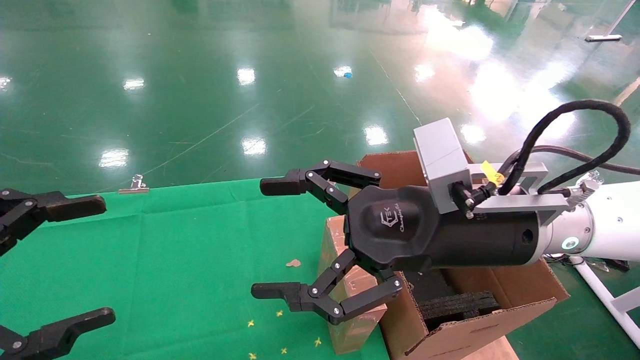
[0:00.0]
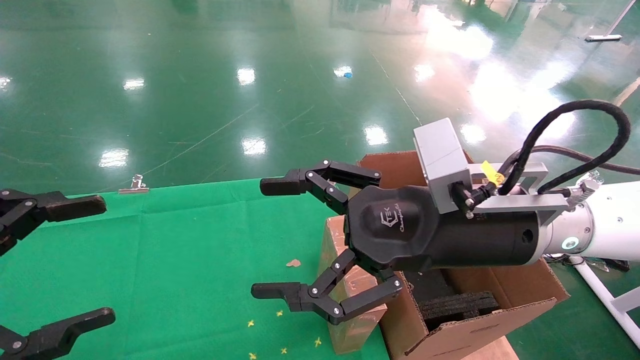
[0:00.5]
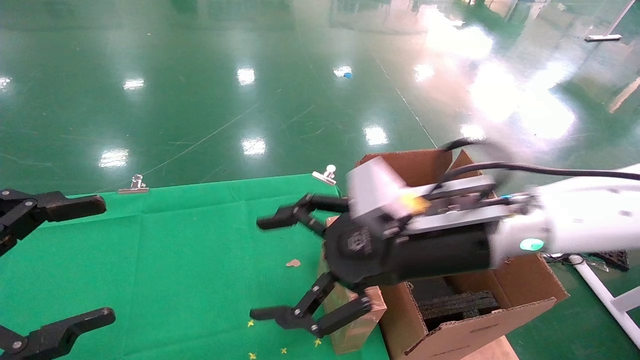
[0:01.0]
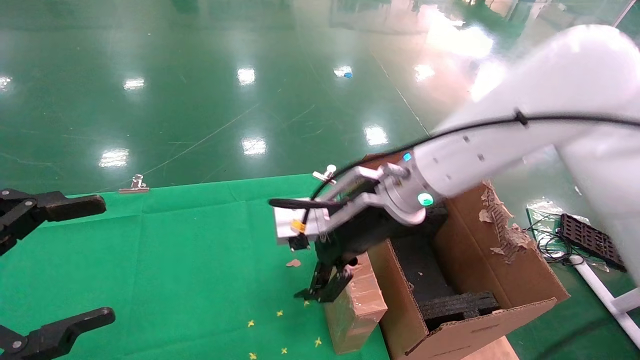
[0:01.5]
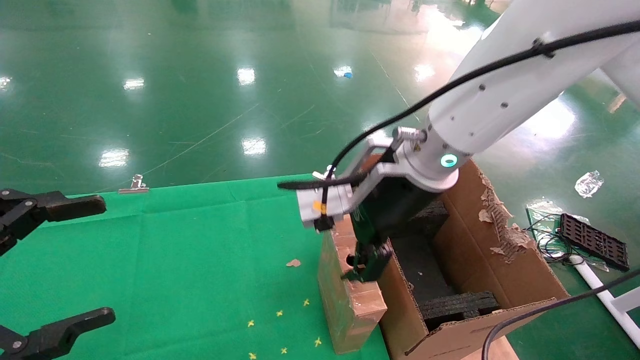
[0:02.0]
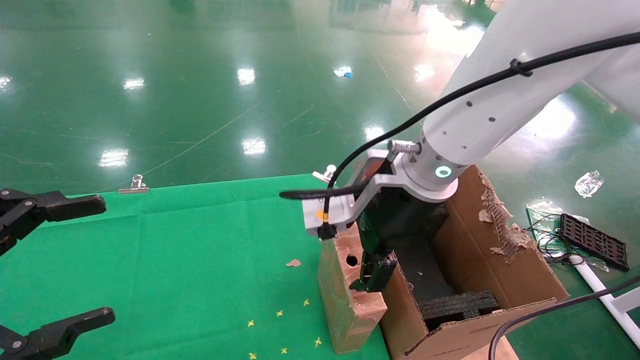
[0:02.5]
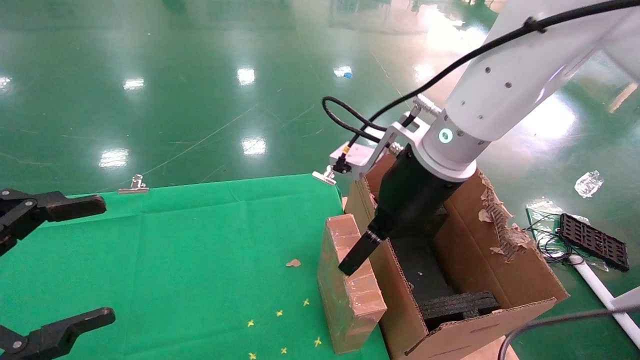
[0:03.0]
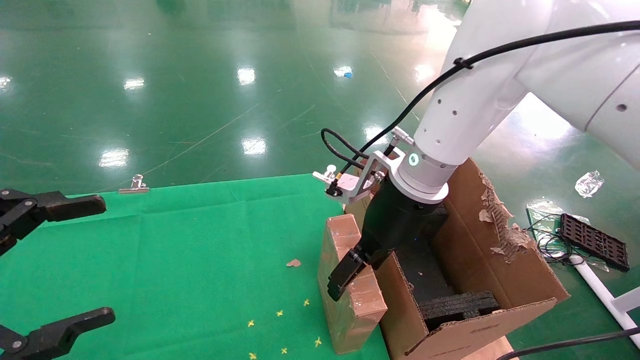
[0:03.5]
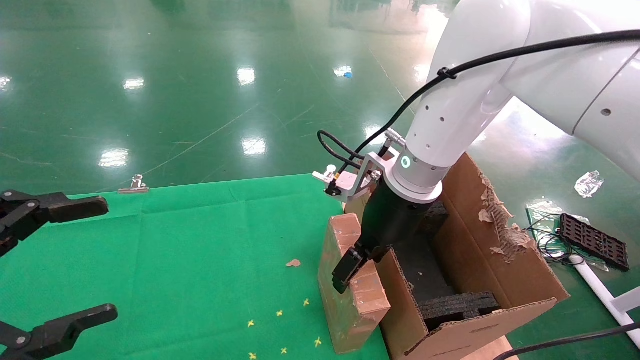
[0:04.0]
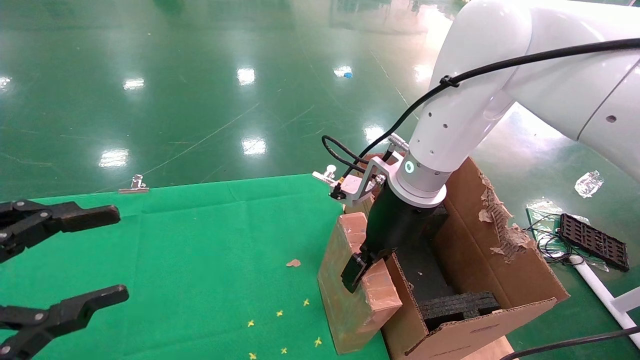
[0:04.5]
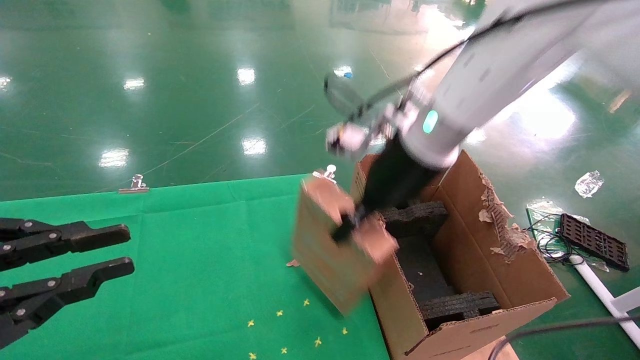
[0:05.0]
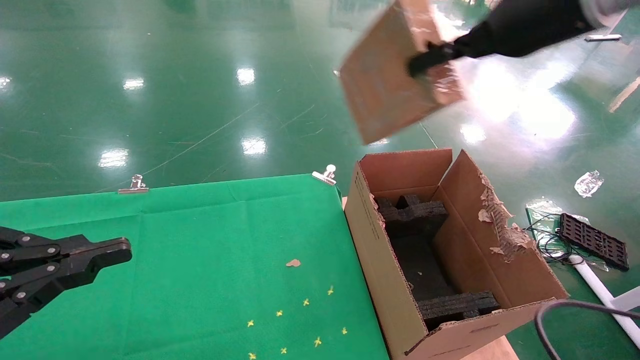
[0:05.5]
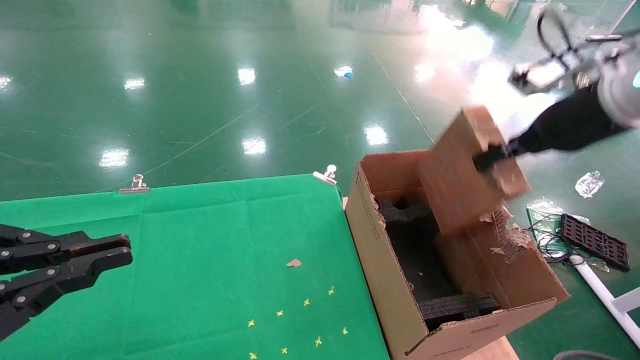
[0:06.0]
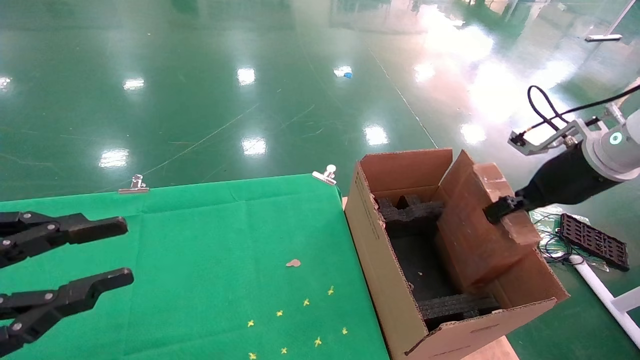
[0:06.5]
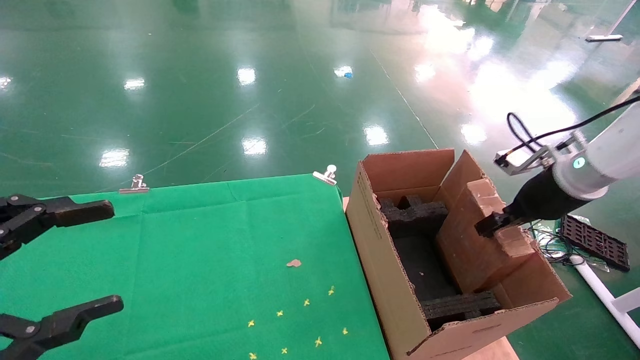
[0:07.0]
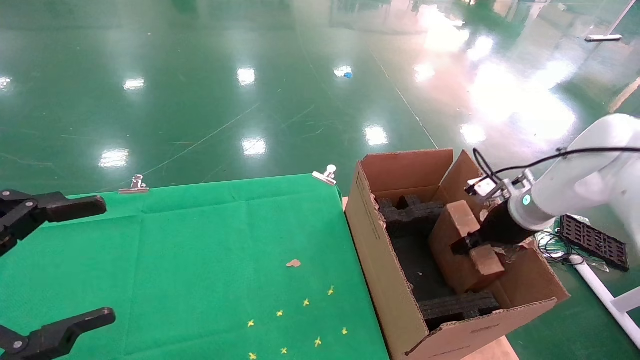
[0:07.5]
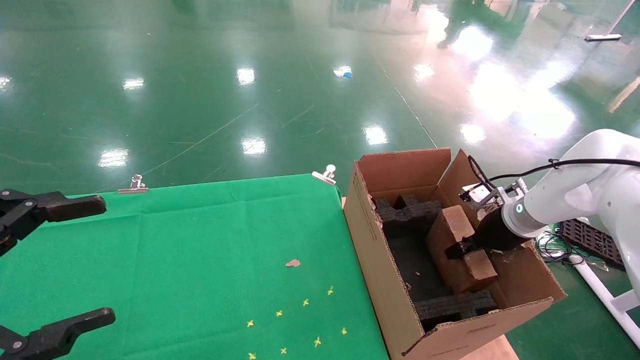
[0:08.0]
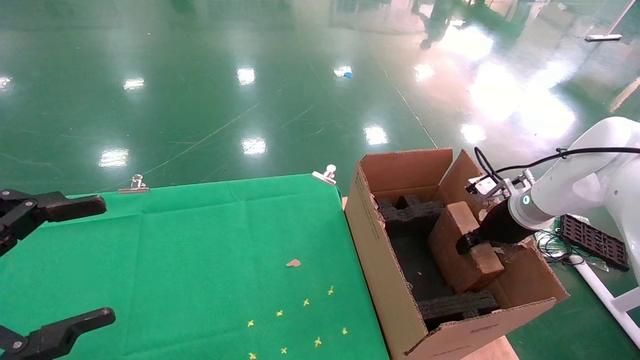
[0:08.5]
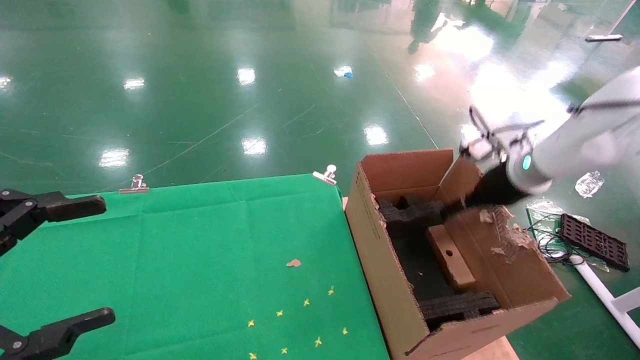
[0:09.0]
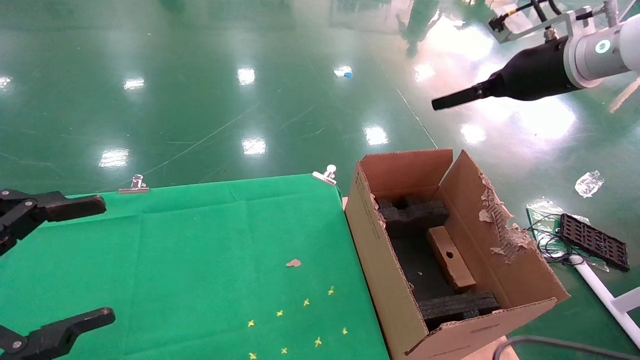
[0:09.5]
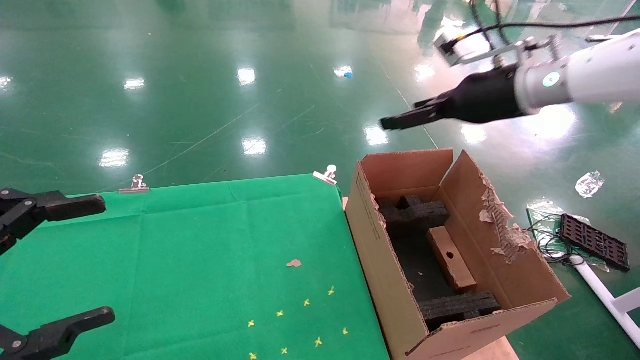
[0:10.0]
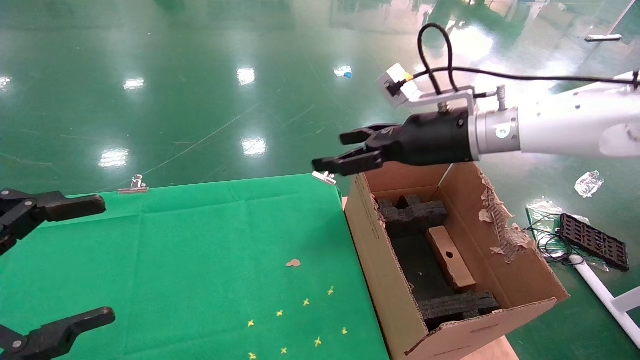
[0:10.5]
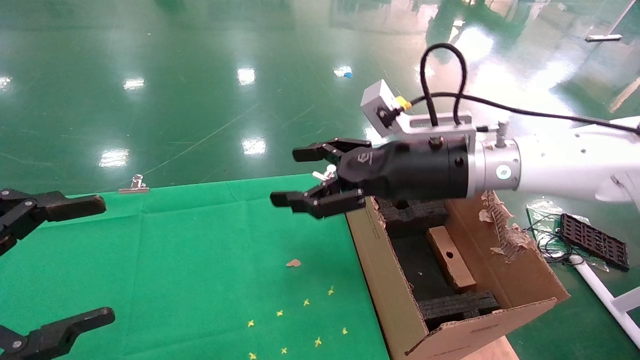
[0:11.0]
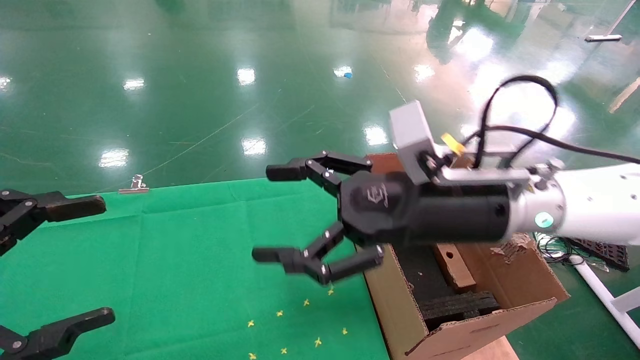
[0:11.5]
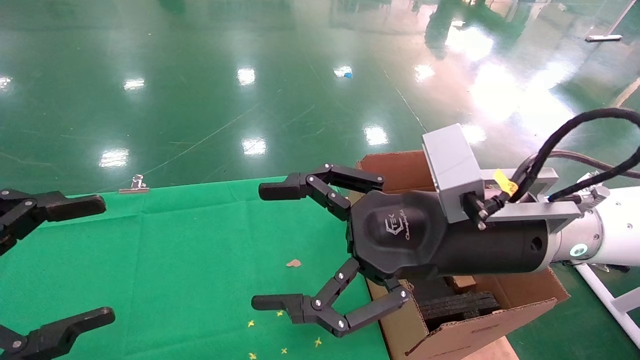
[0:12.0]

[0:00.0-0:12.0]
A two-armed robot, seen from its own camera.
Task of the whole recording: using a robotic arm to pick up a cardboard box and palace it the carton.
Step, 0:01.0 to 0:04.5: Pick up the mouse and the power cord paper box.
Step, 0:05.0 to 0:09.0: Place the mouse and the power cord paper box into the container.
0:00.0 to 0:02.0: The right gripper heads forward and to the left, covering approximately 10 cm.
0:02.0 to 0:04.0: The right gripper heads forward, covering approximately 5 cm.
0:04.0 to 0:06.0: The right gripper heads to the right and upward, covering about 25 cm, and closes its fingers; the left gripper closes.
0:06.0 to 0:08.0: The right gripper shifts about 25 cm downward and forward; the left gripper opens.
0:08.0 to 0:10.0: The right gripper heads upward, covering approximately 20 cm, and opens its fingers.
0:10.0 to 0:12.0: The right gripper shifts roughly 25 cm backward, to the left and downward.

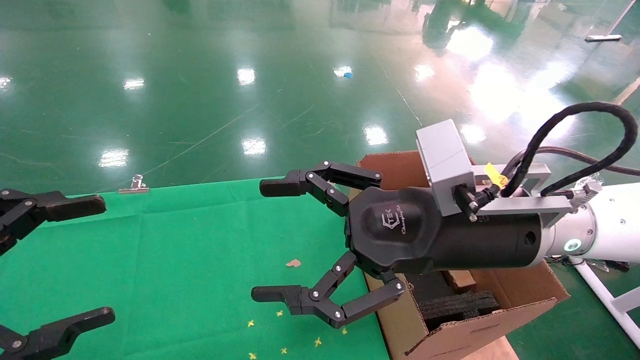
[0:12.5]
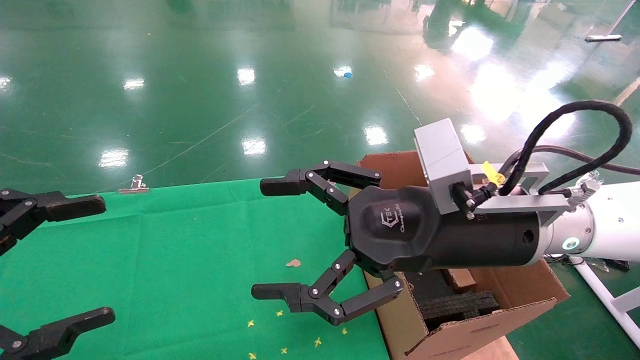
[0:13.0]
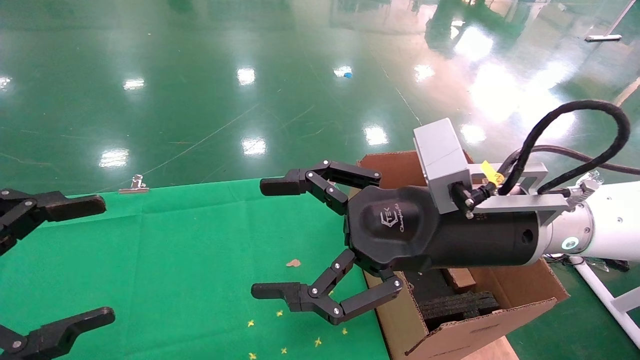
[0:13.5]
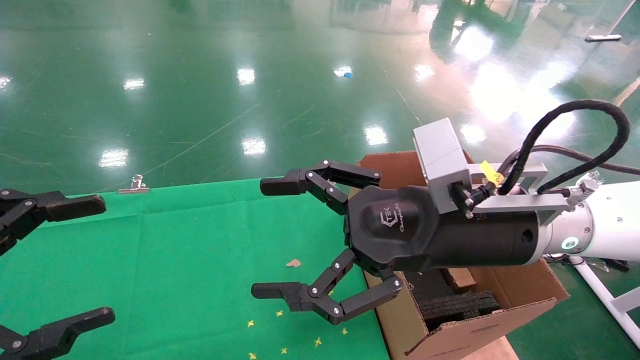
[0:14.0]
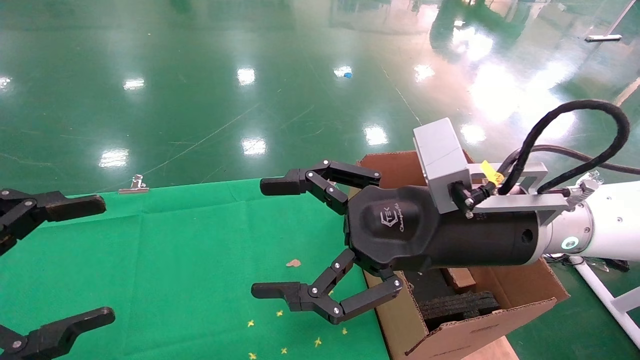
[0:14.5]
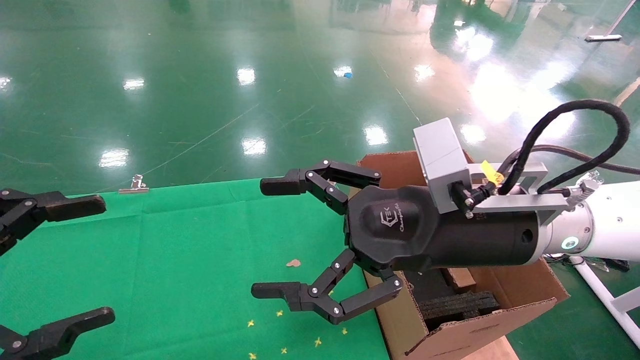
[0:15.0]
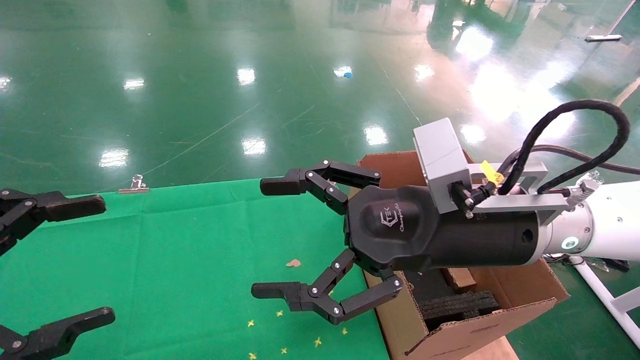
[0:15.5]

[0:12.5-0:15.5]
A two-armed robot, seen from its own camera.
Task of the whole recording: using a robotic arm to pick up a cardboard box and palace it the carton.
0:12.5 to 0:15.5: Both grippers stay about where they are.

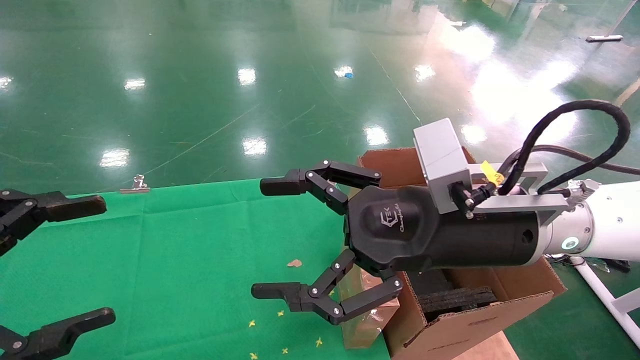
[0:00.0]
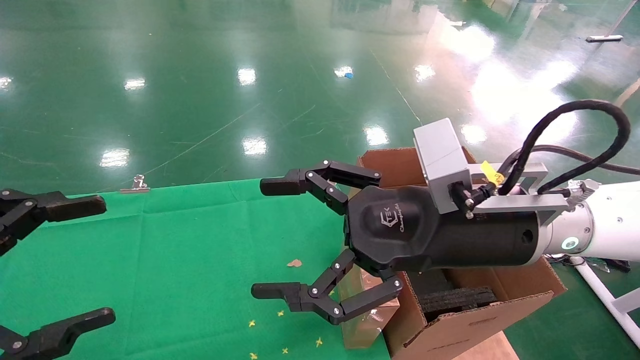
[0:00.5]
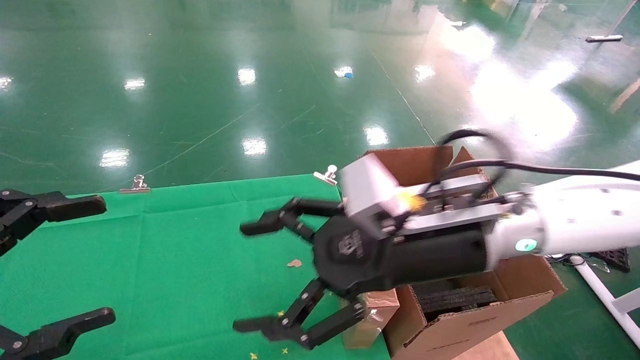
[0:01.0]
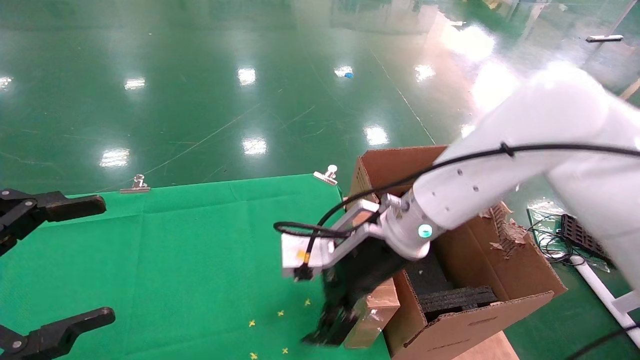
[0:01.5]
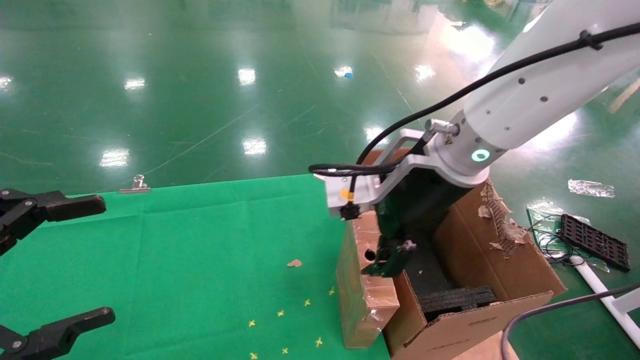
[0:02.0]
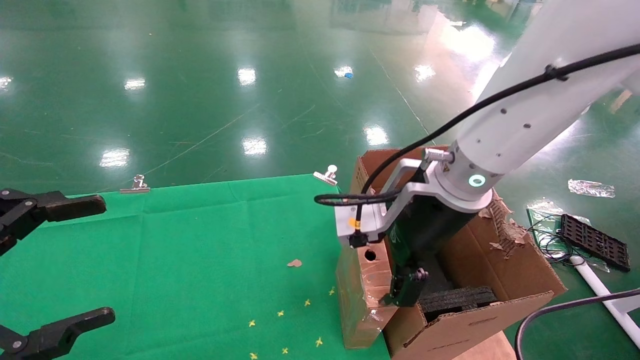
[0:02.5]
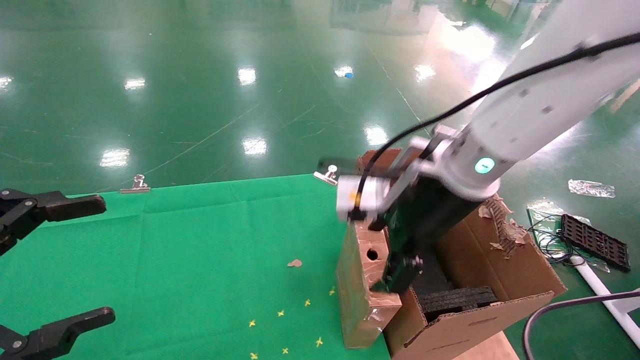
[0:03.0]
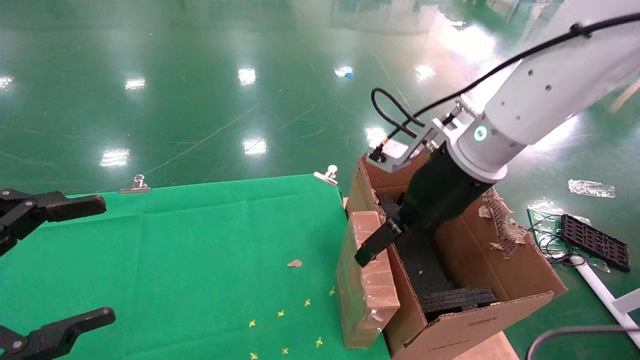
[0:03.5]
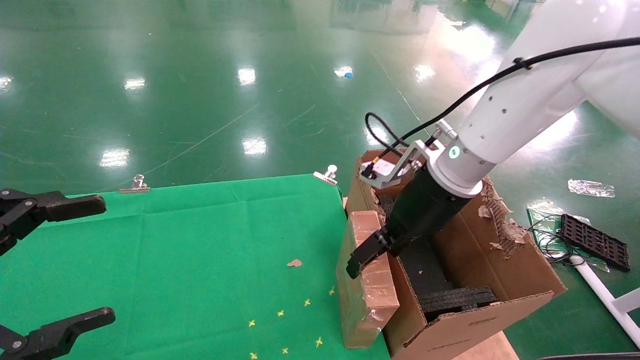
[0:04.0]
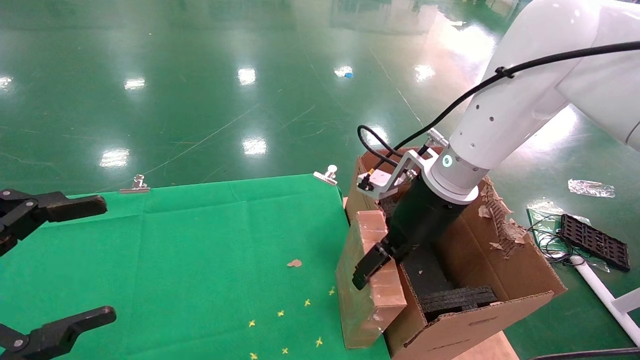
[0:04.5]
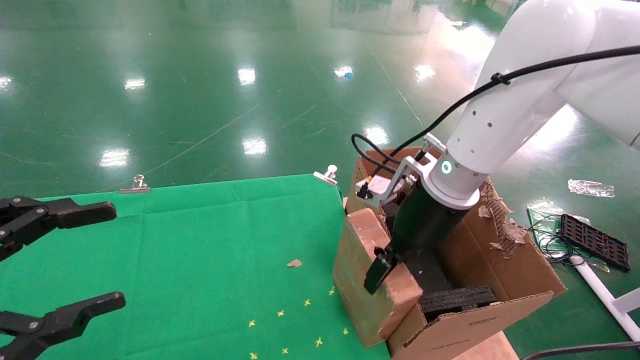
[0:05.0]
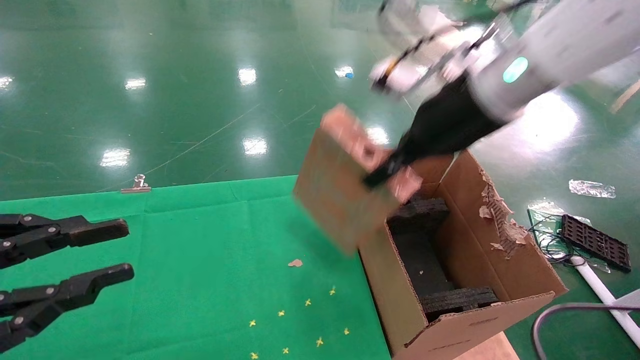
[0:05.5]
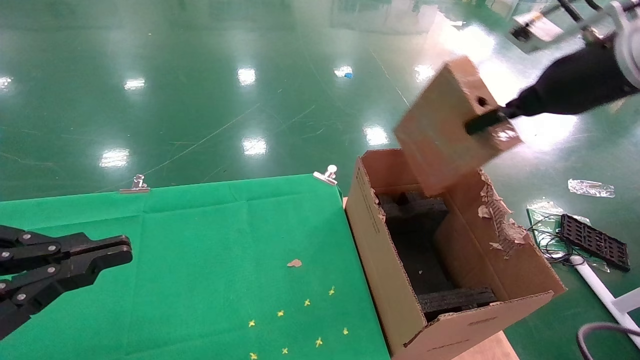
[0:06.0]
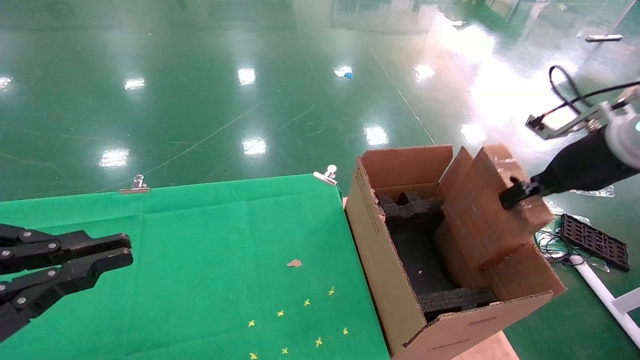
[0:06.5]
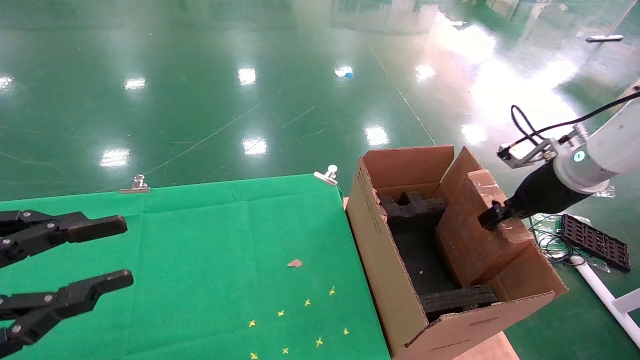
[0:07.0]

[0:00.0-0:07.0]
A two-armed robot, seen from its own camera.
Task of the whole recording: using a robotic arm to pick up a cardboard box and palace it the carton.
Step, 0:01.0 to 0:05.0: Pick up the mouse and the power cord paper box.
0:00.0 to 0:02.0: The right gripper heads forward, covering some 5 cm.
0:02.0 to 0:03.5: The right gripper ends up approximately 5 cm from where it was.
0:03.5 to 0:05.0: The right gripper closes its fingers.
0:05.0 to 0:07.0: The right gripper travels to the right by roughly 25 cm, and closes its fingers, while the left gripper closes its fingers.
